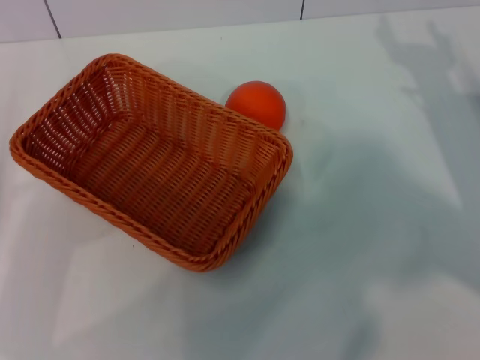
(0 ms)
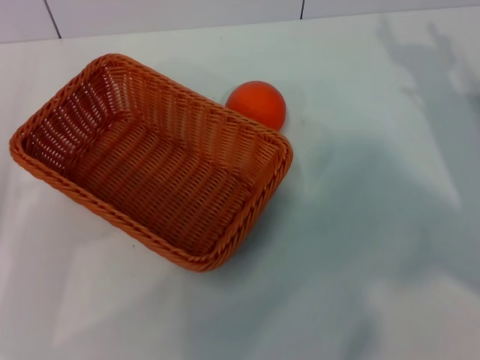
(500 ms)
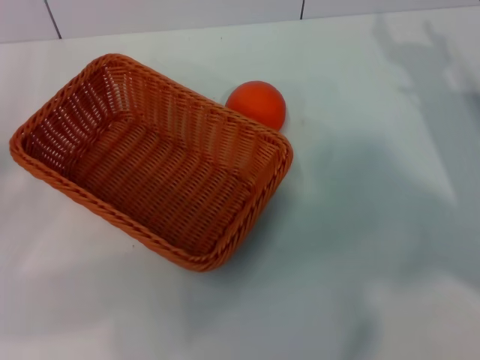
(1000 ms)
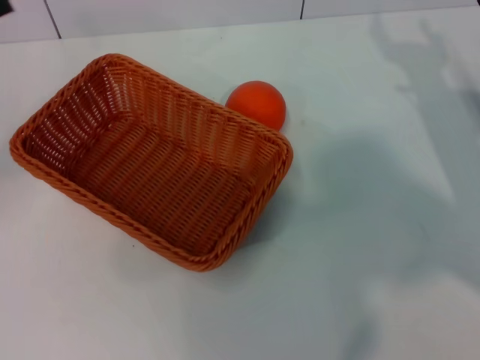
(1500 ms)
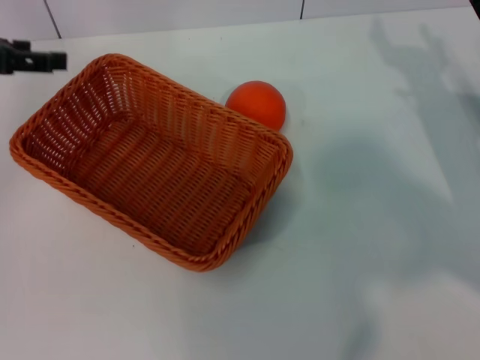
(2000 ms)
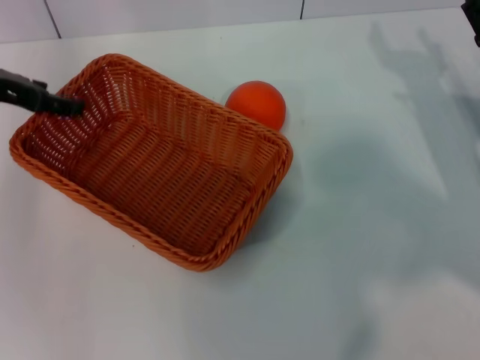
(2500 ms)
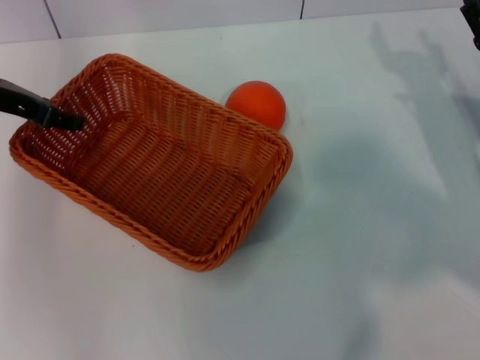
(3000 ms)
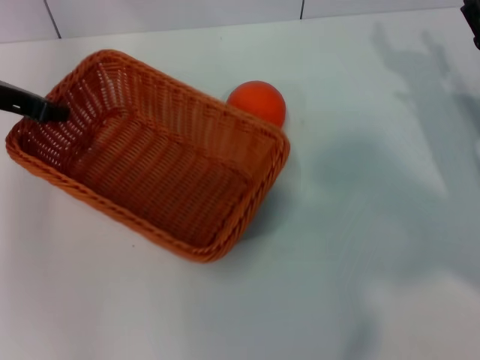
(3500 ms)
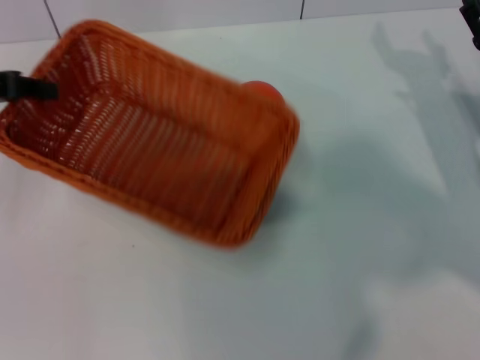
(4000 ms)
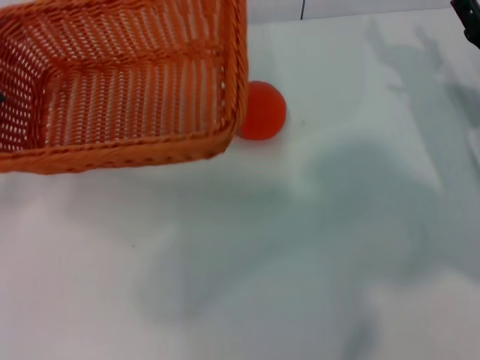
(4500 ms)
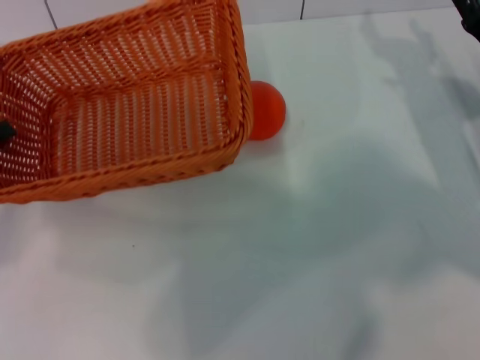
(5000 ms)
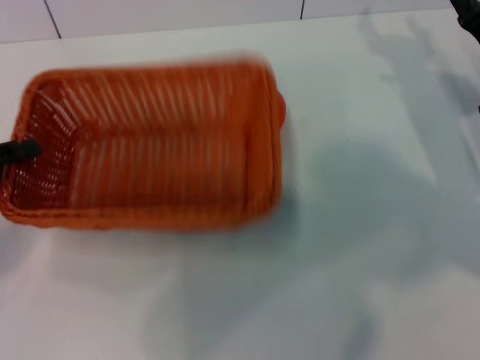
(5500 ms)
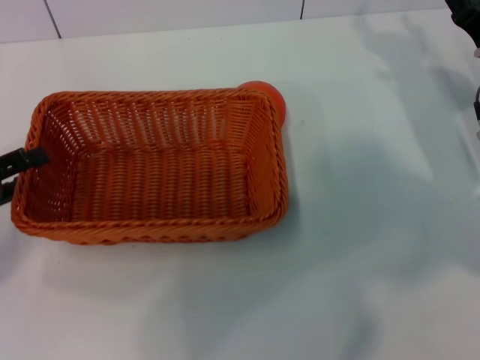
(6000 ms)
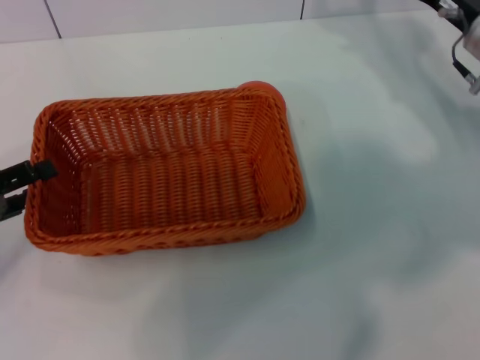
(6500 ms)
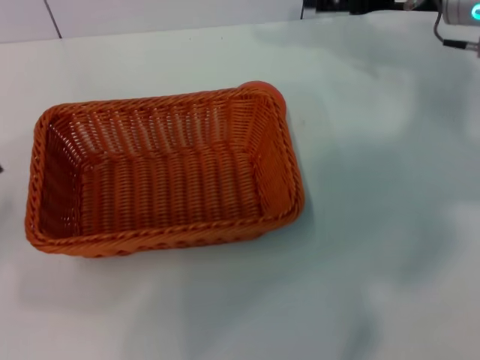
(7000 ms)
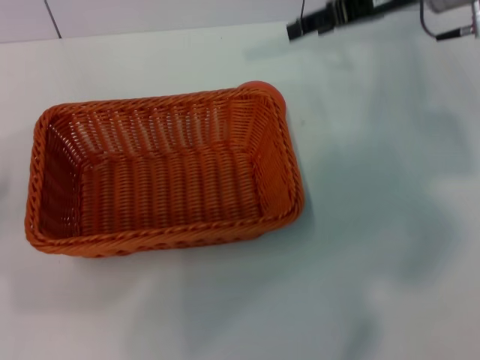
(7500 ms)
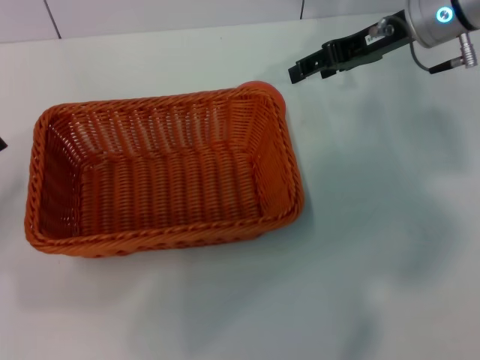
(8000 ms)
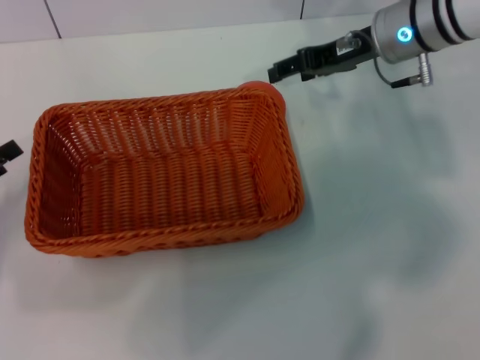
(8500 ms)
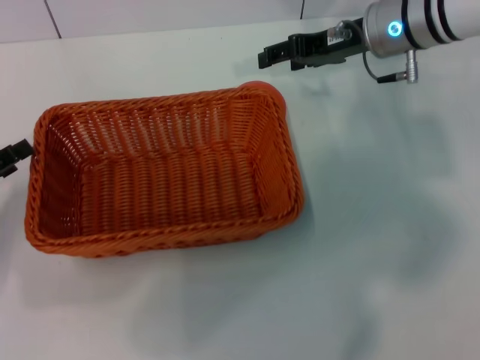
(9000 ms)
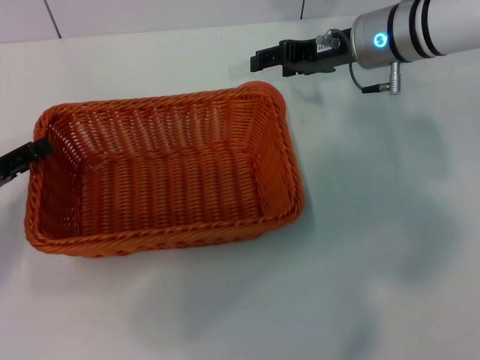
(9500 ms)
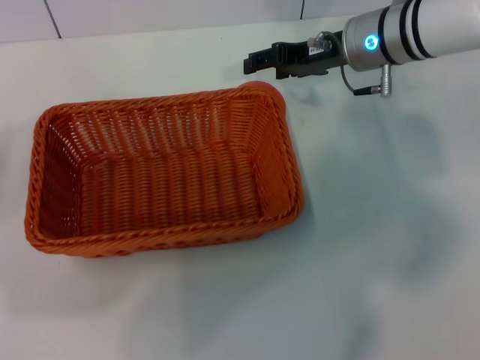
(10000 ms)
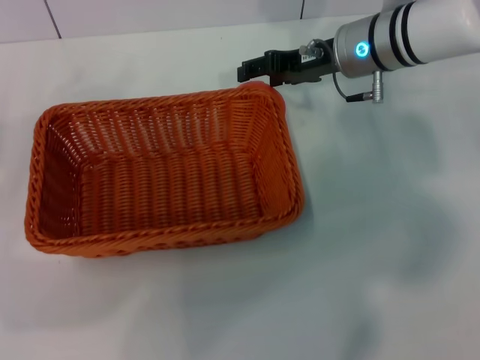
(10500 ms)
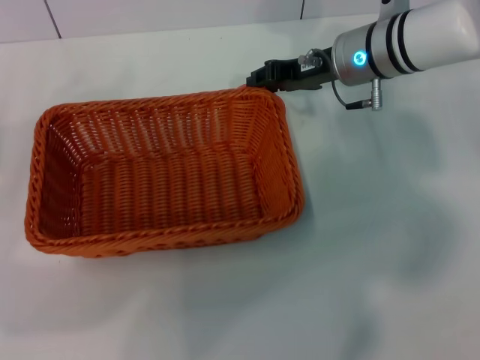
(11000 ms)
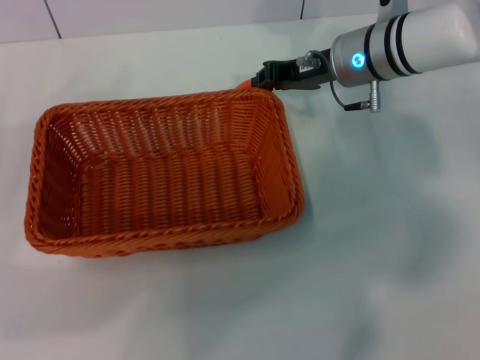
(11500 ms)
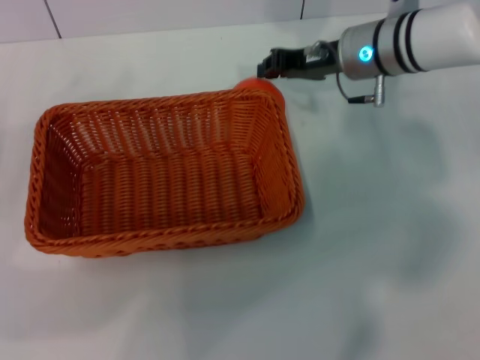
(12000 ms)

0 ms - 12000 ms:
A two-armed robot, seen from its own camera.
Task of the whole recording: the left gripper pick up the yellow basket and place it horizontally in the middle of the table, the right gripper pick up the orange and place it into the yellow basket.
Step, 0 ms - 3500 ms: Pick up the light basket with the left gripper.
Step, 4000 ms - 6500 ms: Place the light basket in the center of view with the left gripper.
0 ms - 2000 ms: The left gripper is displaced forward and upward by roughly 25 cm, and opens its fingers.
2000 ms - 4000 ms: The left gripper closes up.
4000 ms - 6000 ms: The left gripper shifts approximately 15 cm backward and downward, and opens up.
6000 ms - 8000 ms: The right gripper moves upward, forward and to the left, about 15 cm.
8000 ms - 10000 ms: The right gripper ends up some 5 cm from where it was.
10000 ms - 12000 ms: The right gripper closes its fingers.

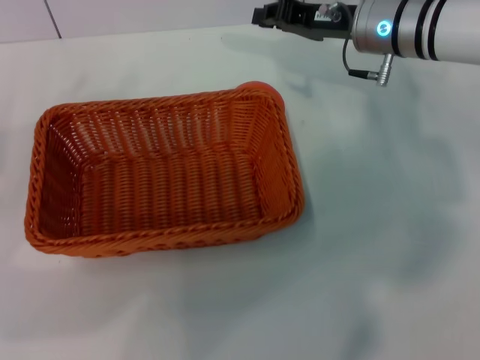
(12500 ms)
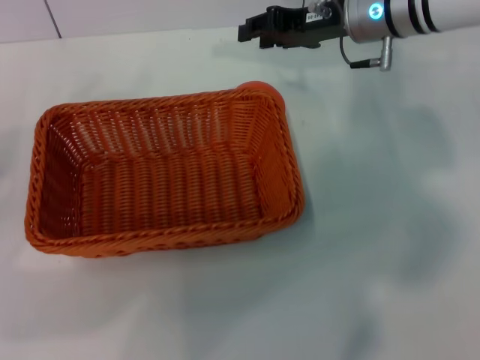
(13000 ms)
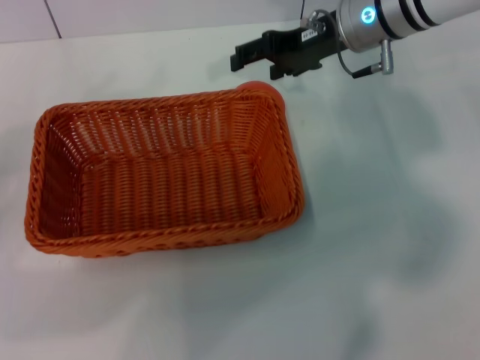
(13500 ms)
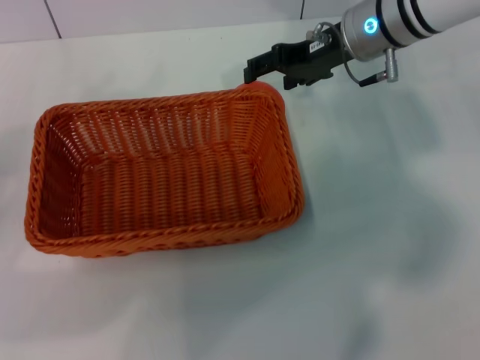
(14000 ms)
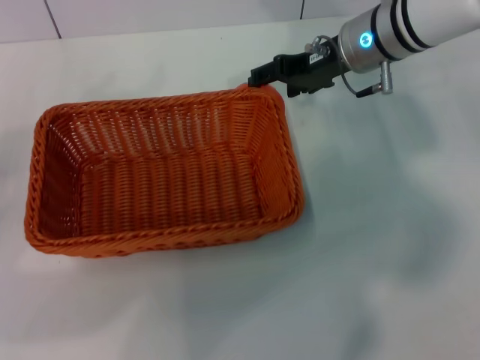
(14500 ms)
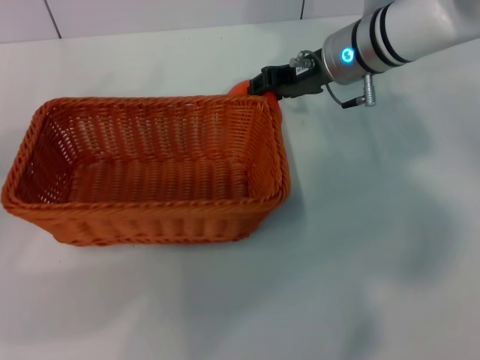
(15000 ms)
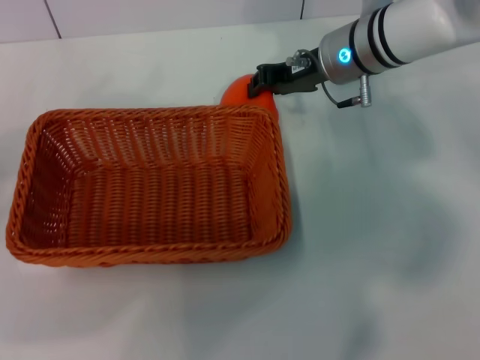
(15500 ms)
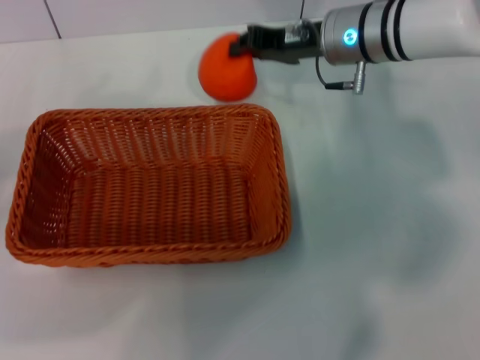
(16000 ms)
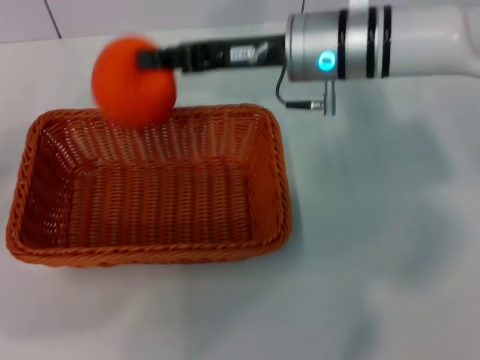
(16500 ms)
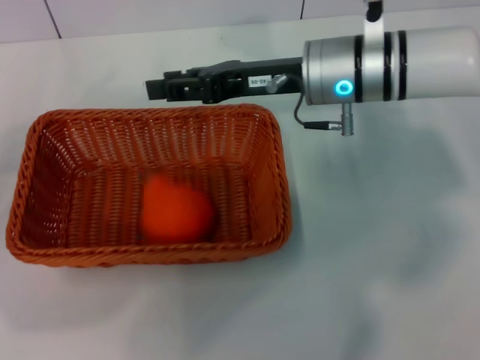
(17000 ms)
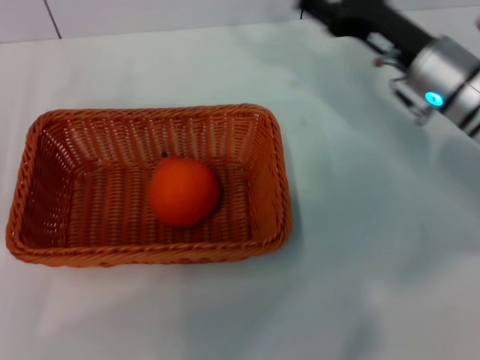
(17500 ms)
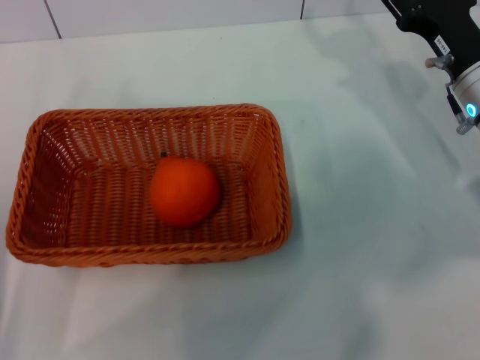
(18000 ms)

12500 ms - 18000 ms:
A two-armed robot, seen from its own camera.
Task of the whole recording: the left gripper pick up the yellow basket and place it horizontally in the middle of the table, the right gripper pick up the orange and place it into the yellow basket.
Step, 12500 ms - 16000 ms: Pick up the orange with the right gripper.
Step, 16500 ms - 17000 ms: Place the orange into the light basket with the right gripper.
12500 ms - 14500 ms: The right gripper opens.
14500 ms - 16000 ms: The right gripper closes.
16000 ms - 18000 ms: The right gripper travels to the right, backward and downward by roughly 15 cm, and opens. Meanwhile the left gripper heads to the right and downward, covering about 10 cm.

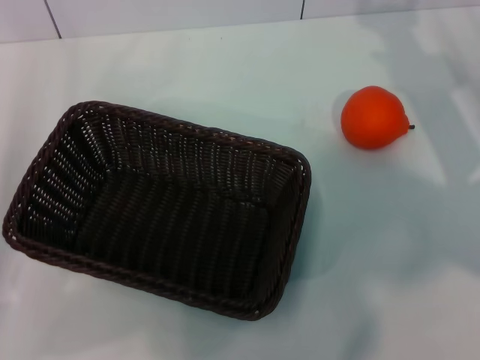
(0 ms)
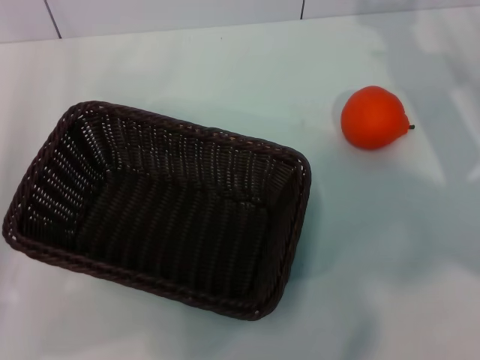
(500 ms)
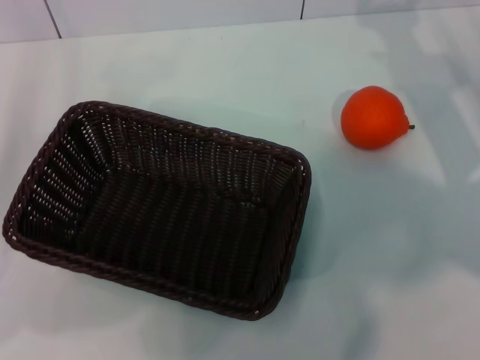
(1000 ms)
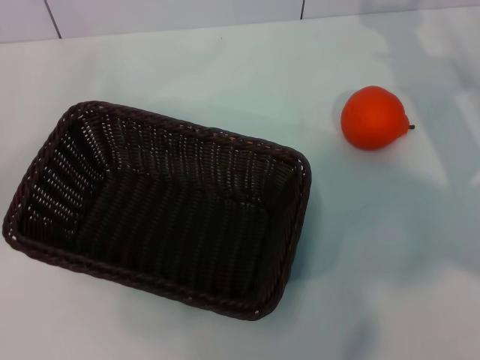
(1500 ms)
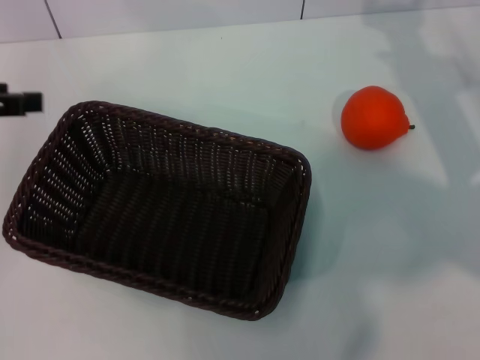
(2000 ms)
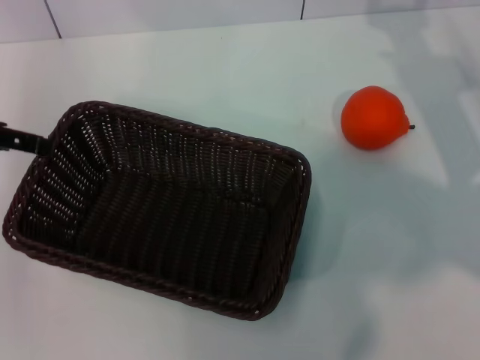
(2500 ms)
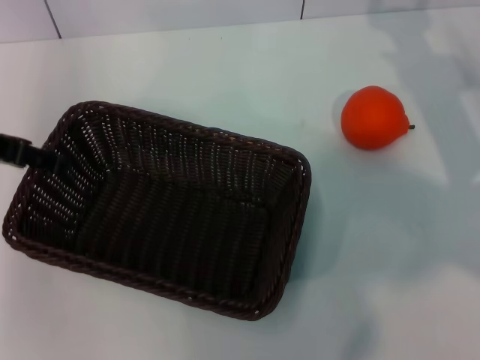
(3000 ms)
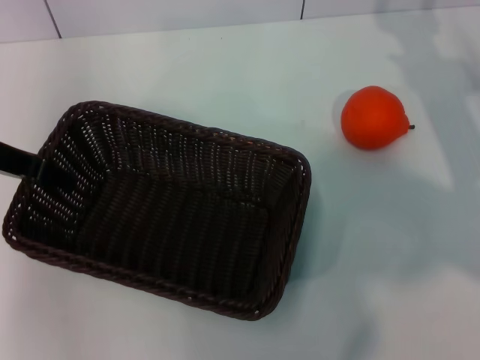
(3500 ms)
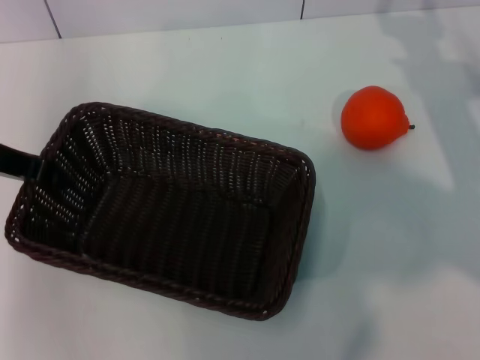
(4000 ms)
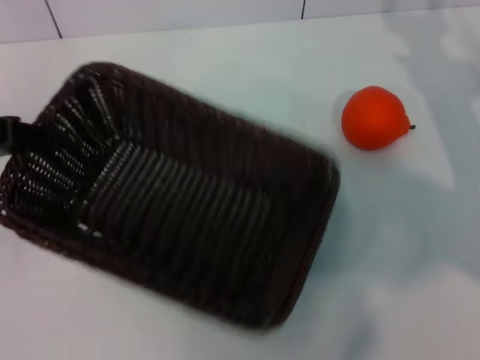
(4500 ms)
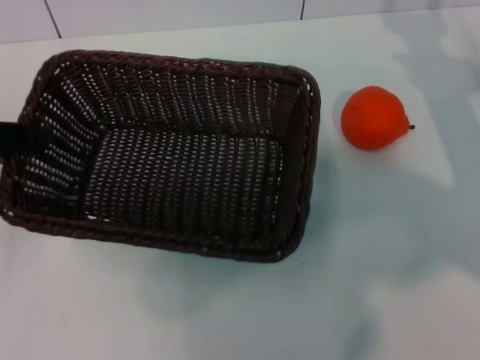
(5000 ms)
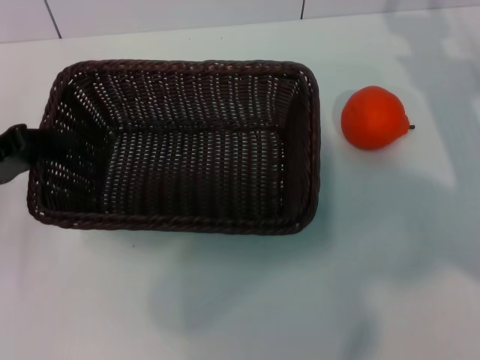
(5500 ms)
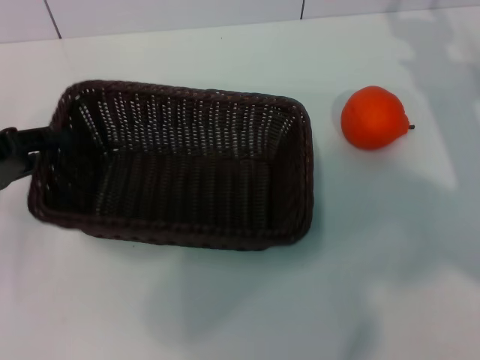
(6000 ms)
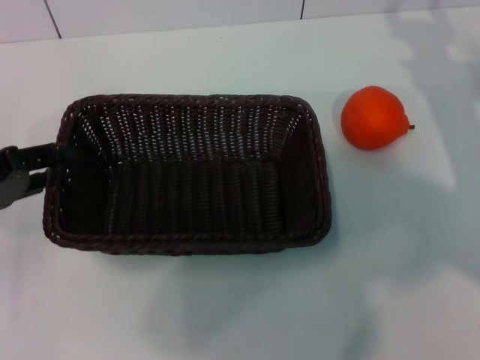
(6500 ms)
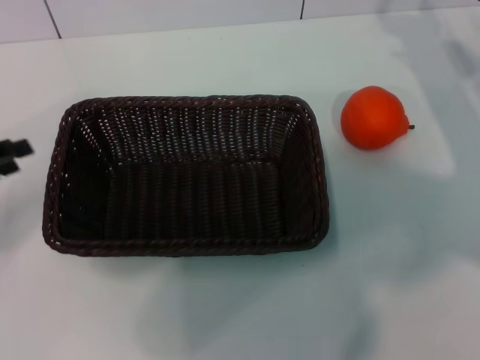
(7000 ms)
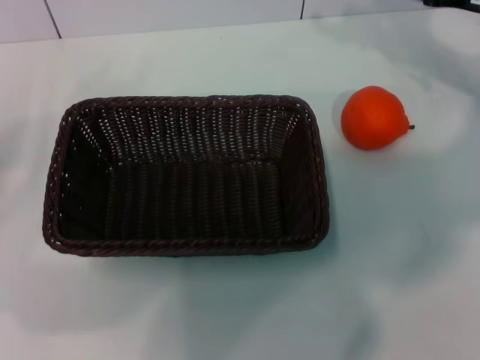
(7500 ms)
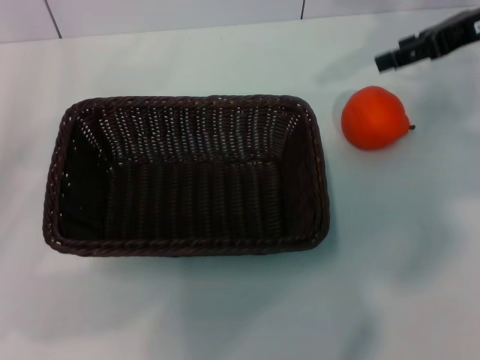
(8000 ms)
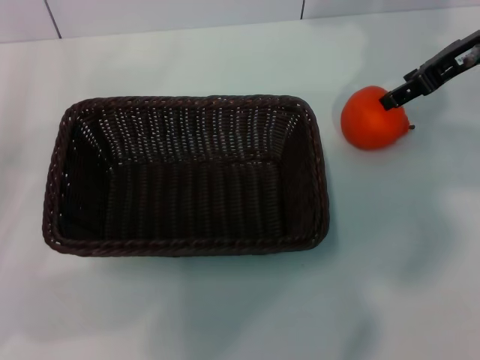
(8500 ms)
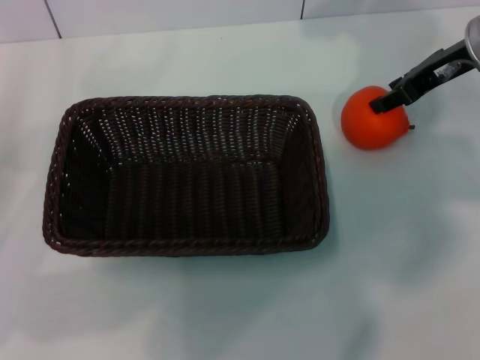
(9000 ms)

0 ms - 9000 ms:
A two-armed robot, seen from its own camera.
Task of the whole recording: the left gripper pick up the black basket and place it horizontally in the middle of the table, the right gripper pick up the orange and place it into the black basket.
Step, 0 ms - 4000 ms: Pick up the dark basket with the left gripper.
Step, 4500 ms - 6500 ms: Place the dark basket in the center of view with the left gripper.
0 ms - 2000 ms: The left gripper shifts about 15 cm upward and forward.
2000 ms - 4500 ms: The left gripper closes.
4500 ms - 7000 ms: The left gripper is displaced downward by about 5 cm, and opens its fingers.
7000 ms - 9000 ms: The right gripper is displaced upward and to the left by roughly 10 cm; the left gripper opens up.
